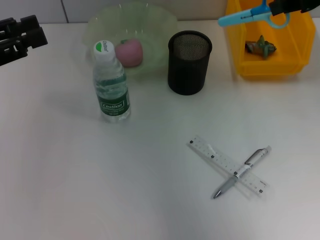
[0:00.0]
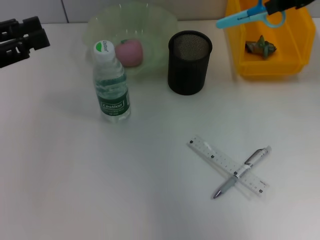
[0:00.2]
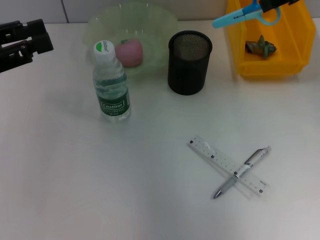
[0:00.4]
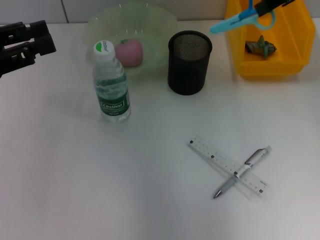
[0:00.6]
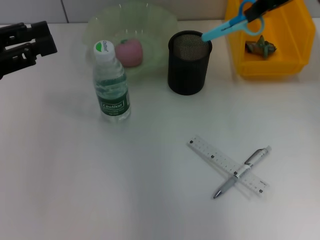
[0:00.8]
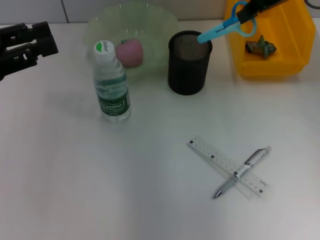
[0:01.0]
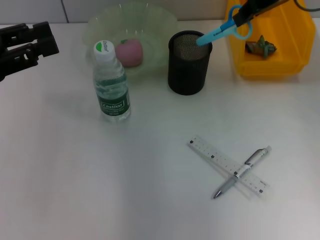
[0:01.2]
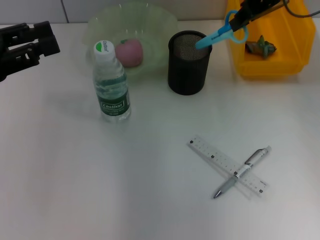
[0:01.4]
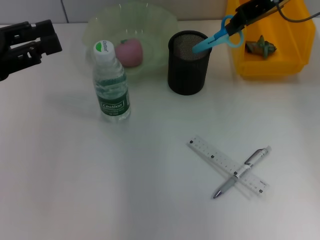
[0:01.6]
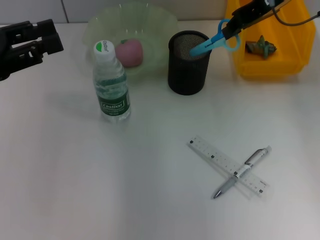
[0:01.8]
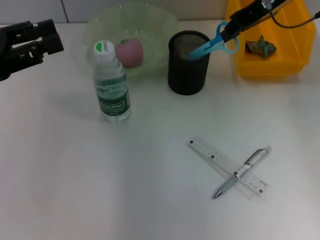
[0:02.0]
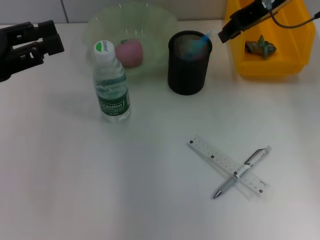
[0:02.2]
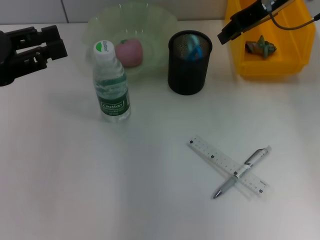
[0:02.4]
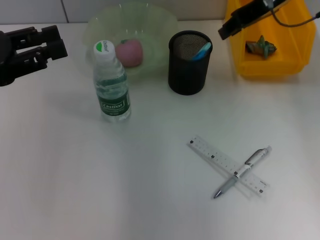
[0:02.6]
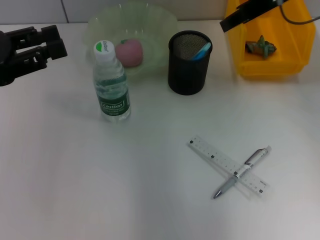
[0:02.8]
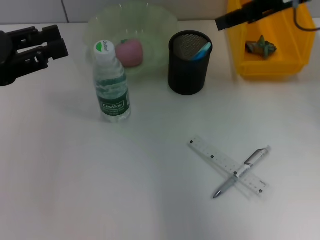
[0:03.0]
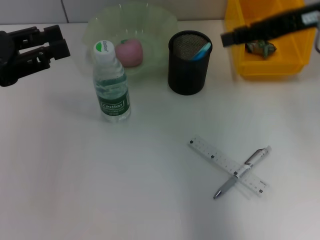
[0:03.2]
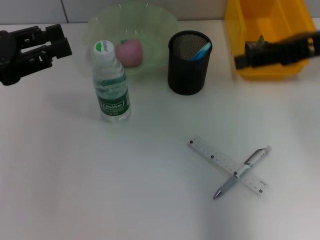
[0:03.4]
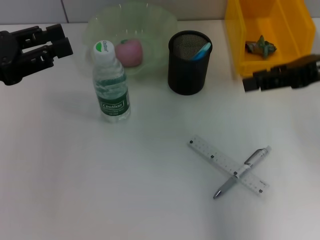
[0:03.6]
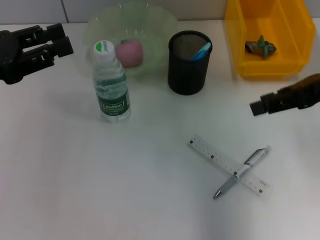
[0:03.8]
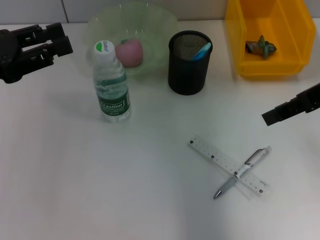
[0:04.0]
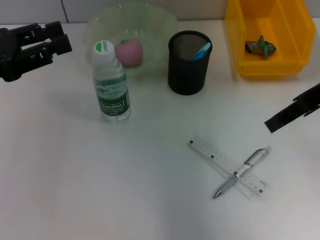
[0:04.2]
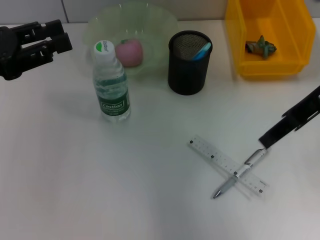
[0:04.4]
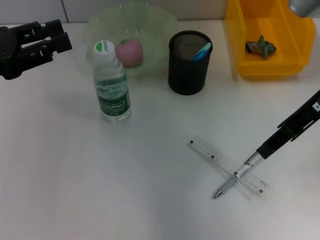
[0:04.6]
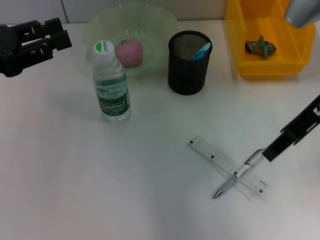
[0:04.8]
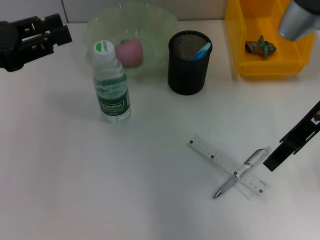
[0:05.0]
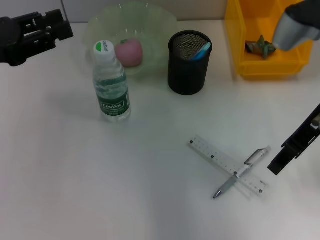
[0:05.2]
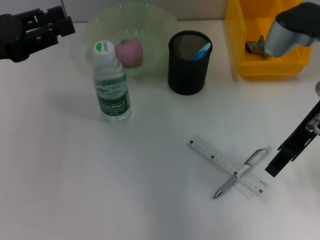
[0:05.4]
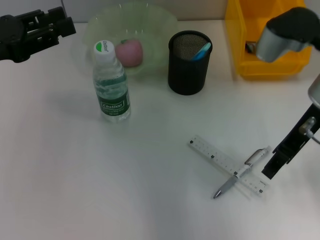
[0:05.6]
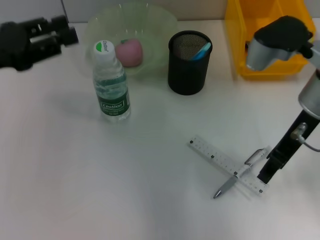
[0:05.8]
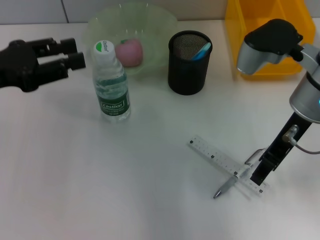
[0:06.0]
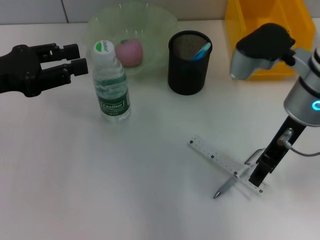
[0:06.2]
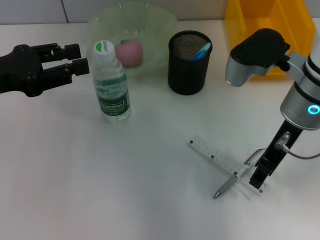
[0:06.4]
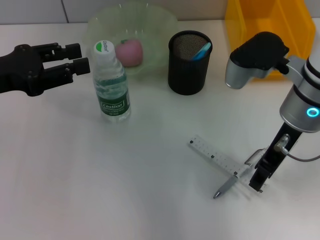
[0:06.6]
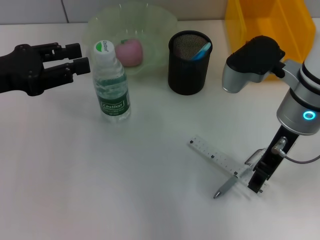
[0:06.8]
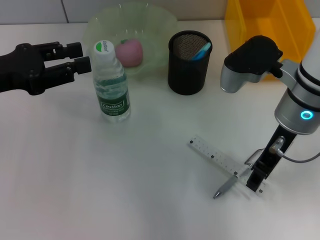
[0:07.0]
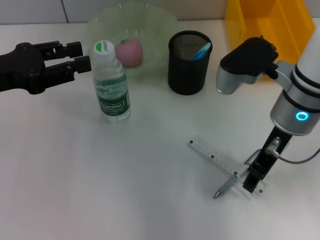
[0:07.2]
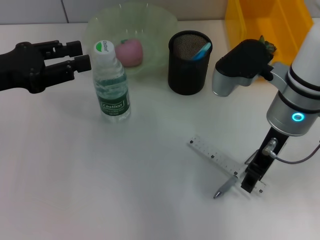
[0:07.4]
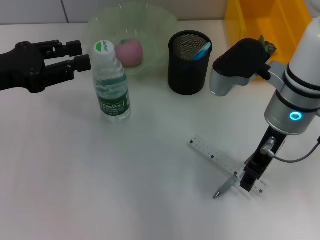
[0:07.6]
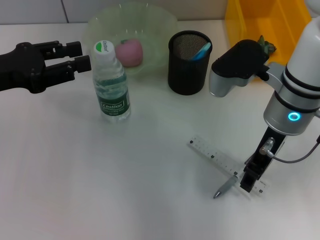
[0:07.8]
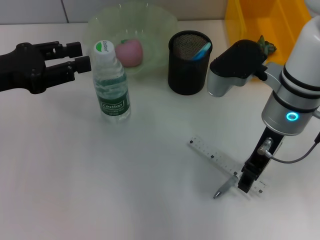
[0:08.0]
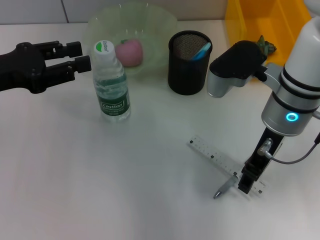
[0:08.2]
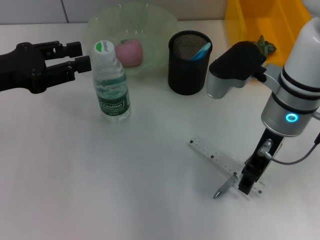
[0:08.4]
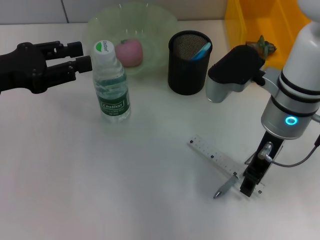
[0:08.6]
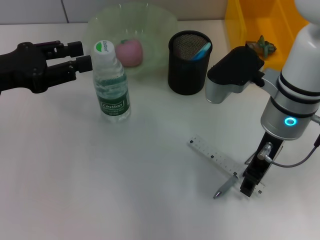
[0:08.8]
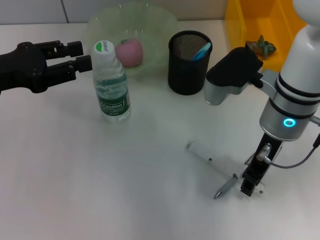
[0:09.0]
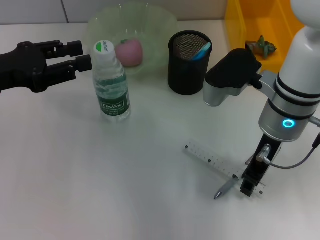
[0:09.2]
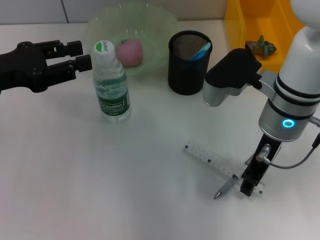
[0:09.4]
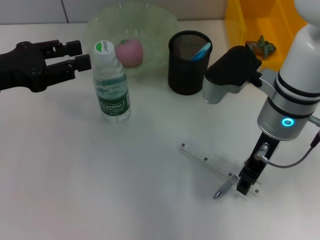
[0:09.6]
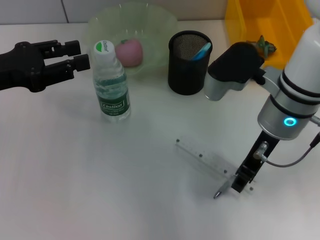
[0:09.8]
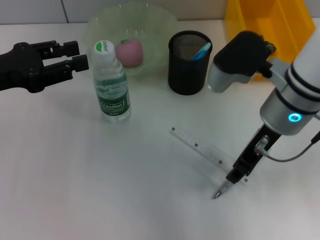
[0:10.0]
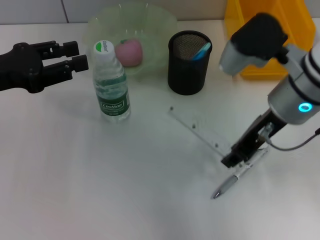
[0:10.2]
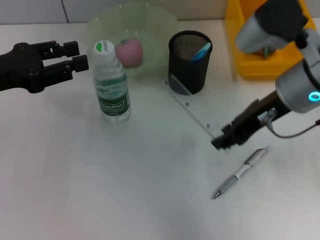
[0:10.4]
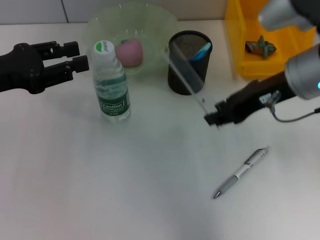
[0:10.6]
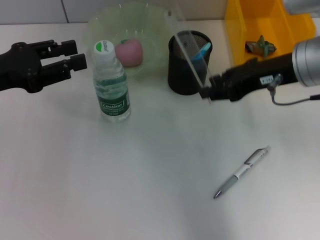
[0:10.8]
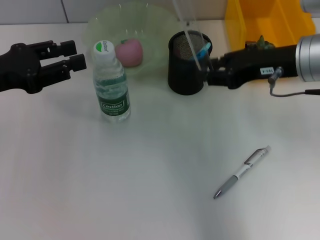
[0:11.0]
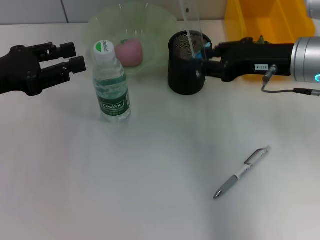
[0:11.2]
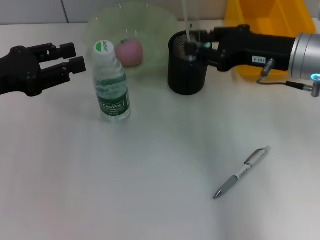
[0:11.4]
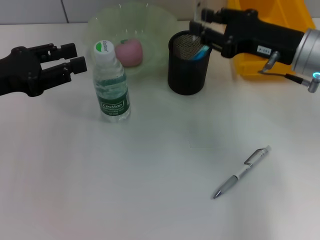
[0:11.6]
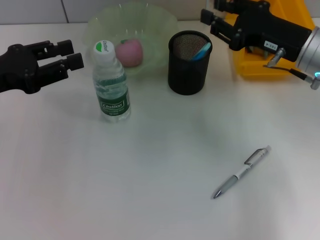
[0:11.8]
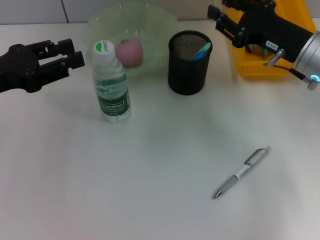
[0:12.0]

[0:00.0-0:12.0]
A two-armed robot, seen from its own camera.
Step, 0:00.0 to 0:03.0: Place the blue scissors into the pen holder with the right hand.
Step, 0:03.2 to 0:09.4: Grab the ruler with the right hand.
0:00.0 to 0:01.6: The right gripper is displaced forward, to the left and downward by approximately 10 cm.
0:01.6 to 0:03.0: The right gripper moves about 5 cm.
0:03.0 to 0:04.4: The right gripper is displaced backward by roughly 5 cm.
0:04.4 to 0:06.0: The right gripper travels downward by roughly 5 cm.
0:06.0 to 0:07.6: There are only small adjustments of the grippers.
0:07.6 to 0:09.0: Both grippers stay about where they are.
0:09.0 to 0:10.4: The right gripper shifts approximately 5 cm upward.
0:10.4 to 0:12.0: The right gripper goes roughly 10 cm downward and to the right.

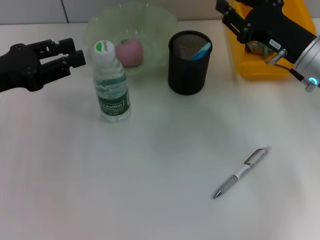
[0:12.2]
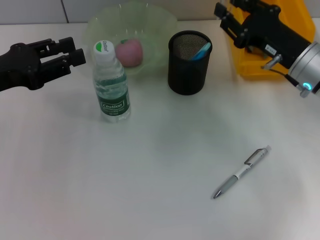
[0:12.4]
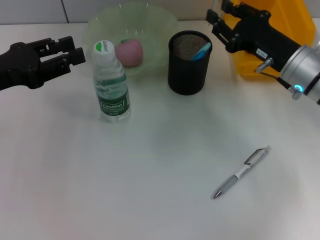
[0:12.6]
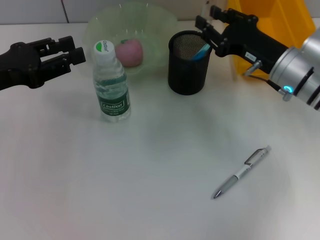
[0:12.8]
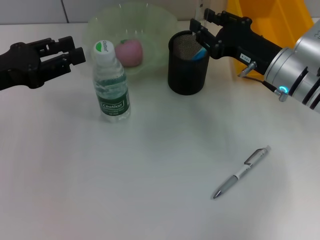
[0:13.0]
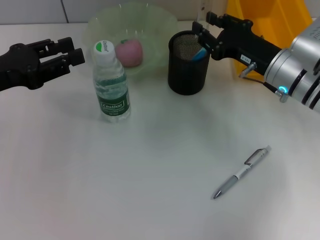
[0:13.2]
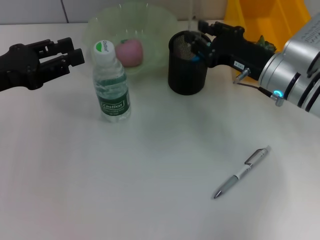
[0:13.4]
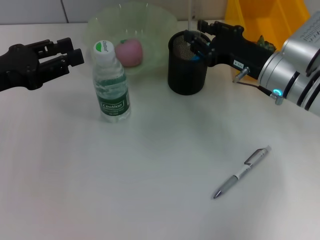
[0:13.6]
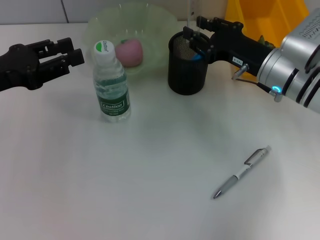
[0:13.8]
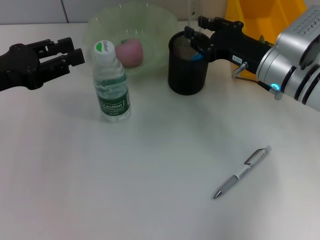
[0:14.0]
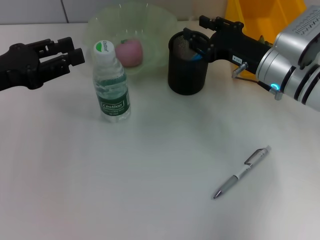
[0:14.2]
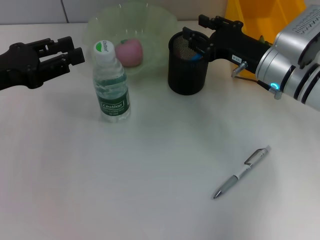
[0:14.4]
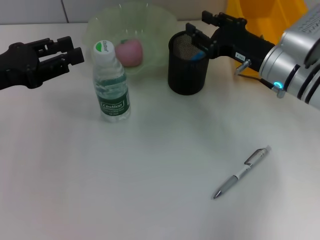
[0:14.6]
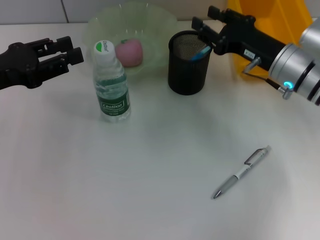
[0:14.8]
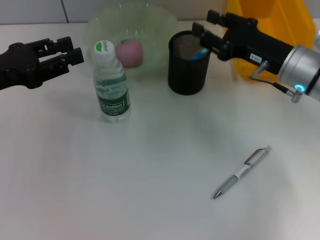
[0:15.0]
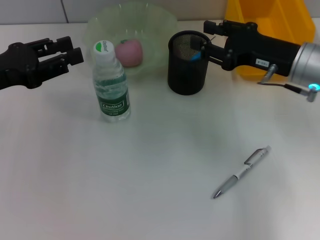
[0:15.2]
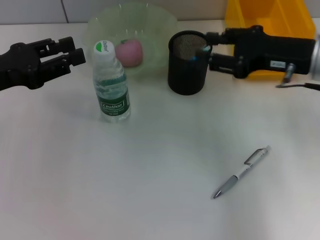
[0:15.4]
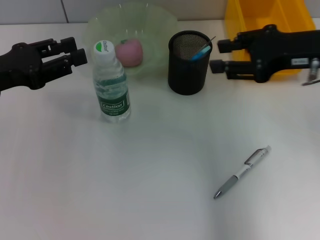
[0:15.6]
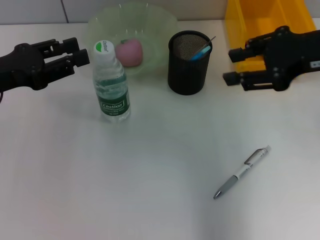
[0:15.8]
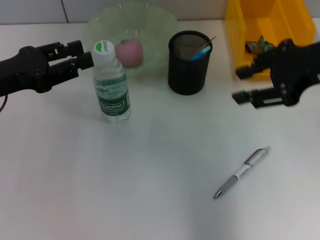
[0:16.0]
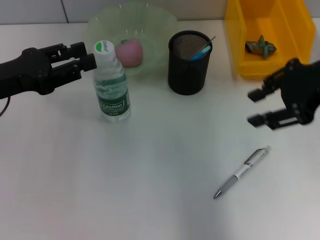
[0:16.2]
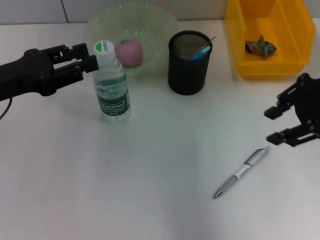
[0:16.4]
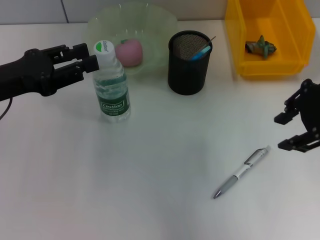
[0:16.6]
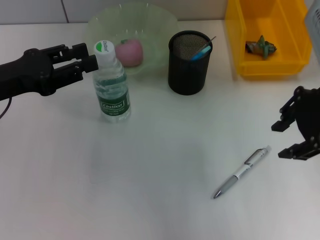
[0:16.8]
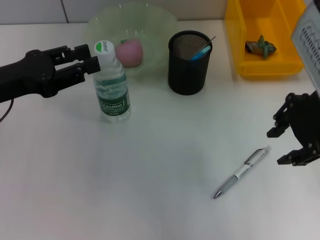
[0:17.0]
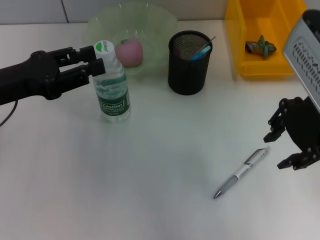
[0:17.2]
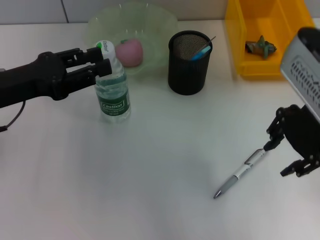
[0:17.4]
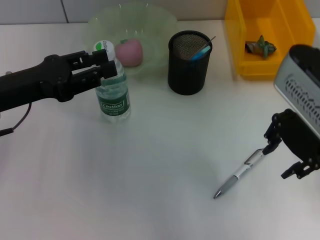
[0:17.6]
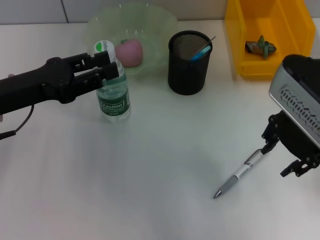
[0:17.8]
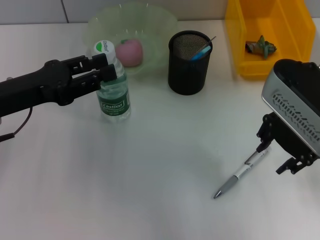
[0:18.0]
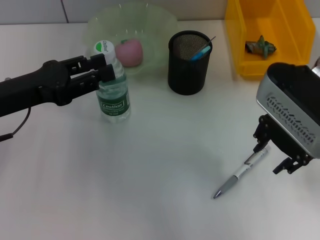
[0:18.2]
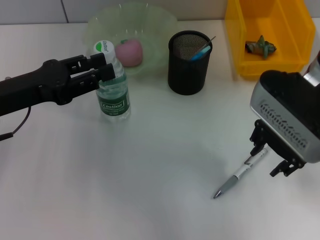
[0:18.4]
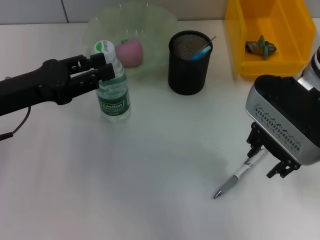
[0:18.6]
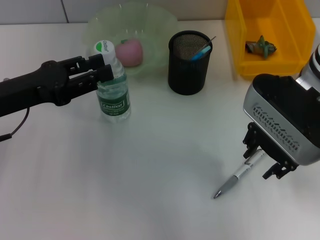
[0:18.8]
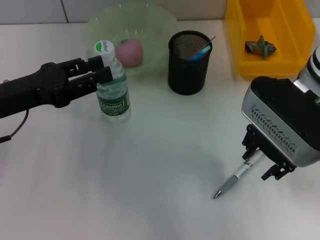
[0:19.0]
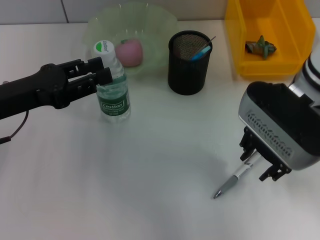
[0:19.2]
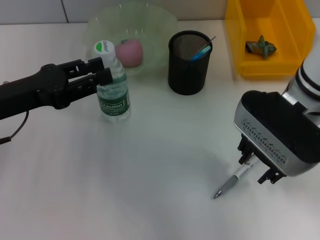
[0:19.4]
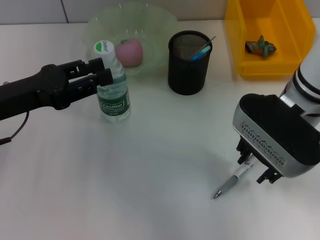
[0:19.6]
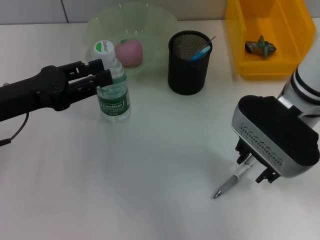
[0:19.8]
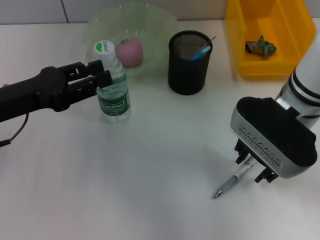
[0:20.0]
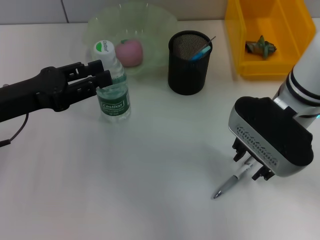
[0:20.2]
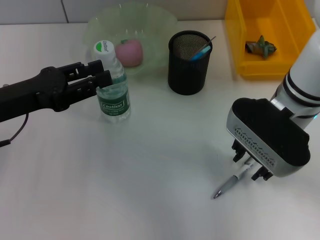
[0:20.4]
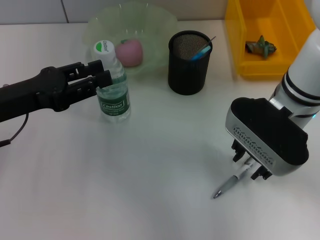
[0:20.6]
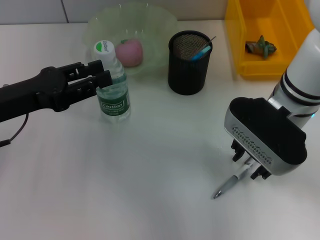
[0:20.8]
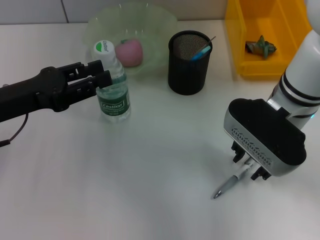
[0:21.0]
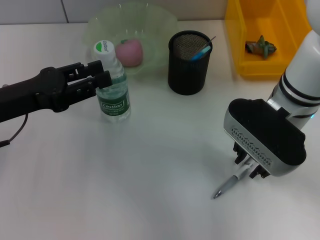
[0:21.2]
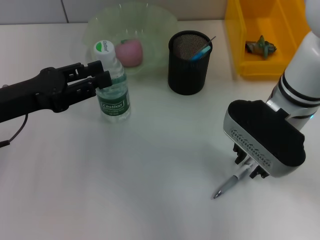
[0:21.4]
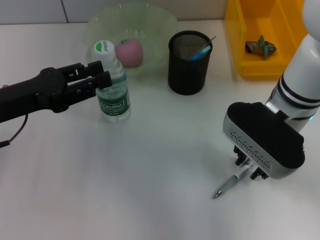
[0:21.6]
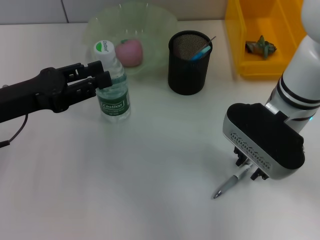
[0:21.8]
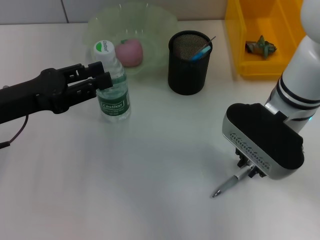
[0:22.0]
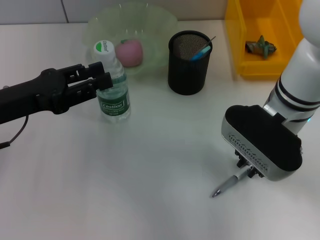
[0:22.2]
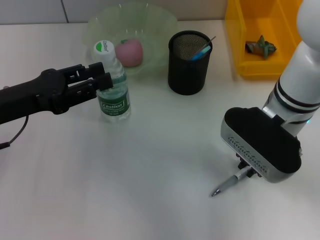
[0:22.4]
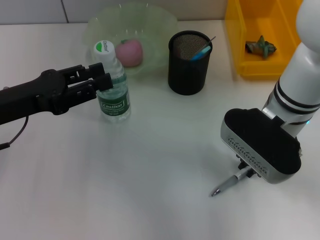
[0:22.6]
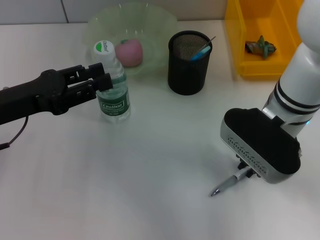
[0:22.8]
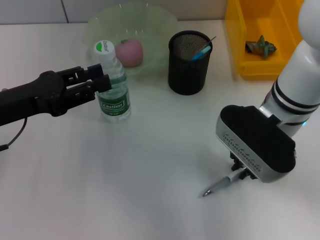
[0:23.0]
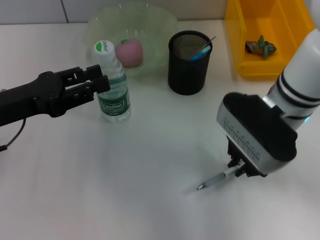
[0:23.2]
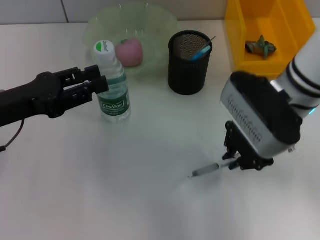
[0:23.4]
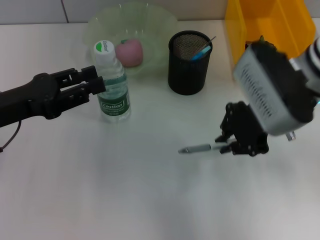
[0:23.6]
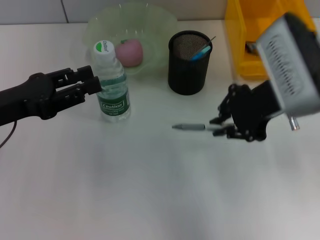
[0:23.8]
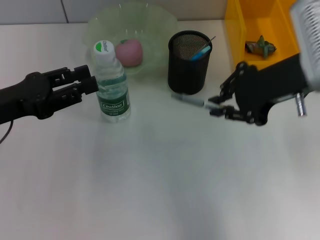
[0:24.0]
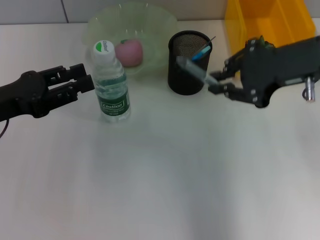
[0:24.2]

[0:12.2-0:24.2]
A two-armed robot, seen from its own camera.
Step, 0:12.2 to 0:15.0: Place the ruler into the pen holder with the right hand.
Step, 0:15.4 to 0:22.6: Grab the gray spring-action pen with the right hand.
0:12.2 to 0:13.8: There are only small adjustments of the grippers.
0:13.8 to 0:15.2: The right gripper moves about 5 cm.
0:15.2 to 0:16.6: The right gripper goes some 10 cm upward.
0:16.6 to 0:18.2: The right gripper moves to the left, some 5 cm.
0:18.2 to 0:19.8: The right gripper moves about 5 cm.
0:19.8 to 0:21.2: The grippers make only small movements.
0:21.2 to 0:22.6: The right gripper closes its fingers.
0:22.6 to 0:24.2: The right gripper is displaced upward and to the right by some 10 cm.
